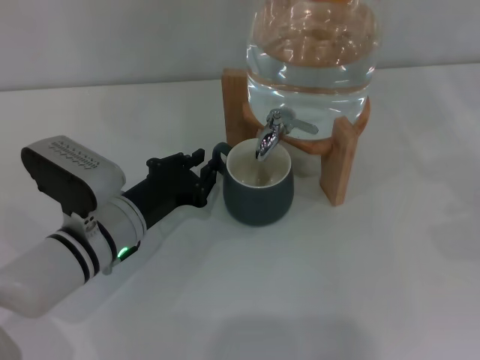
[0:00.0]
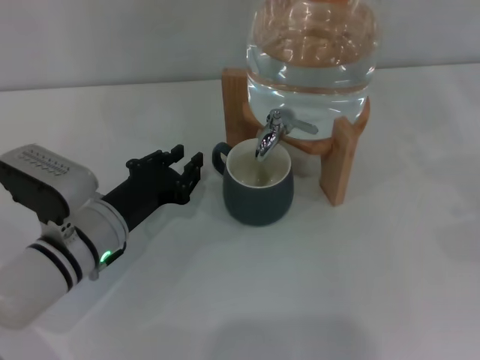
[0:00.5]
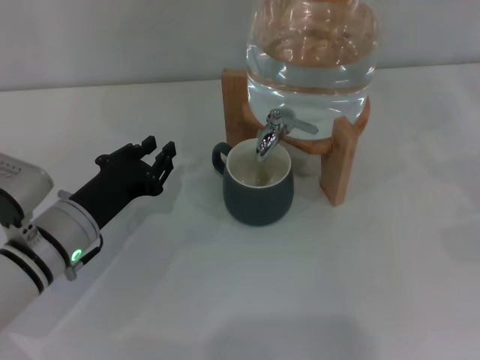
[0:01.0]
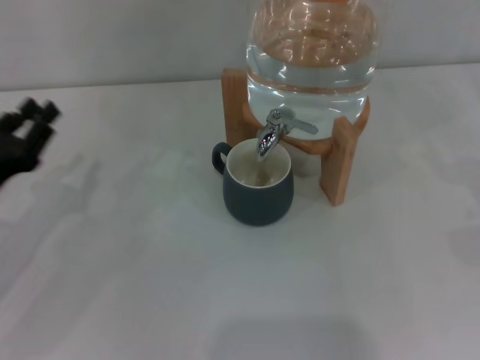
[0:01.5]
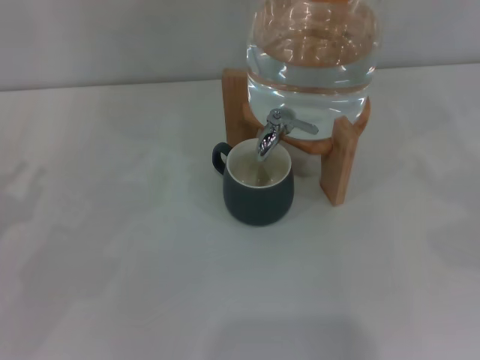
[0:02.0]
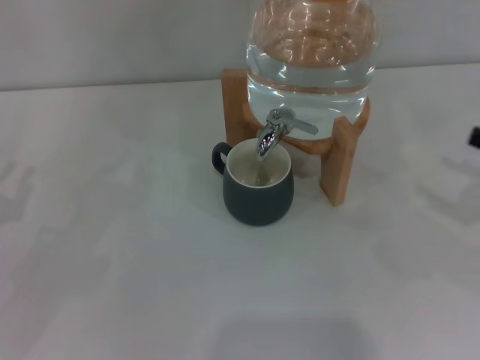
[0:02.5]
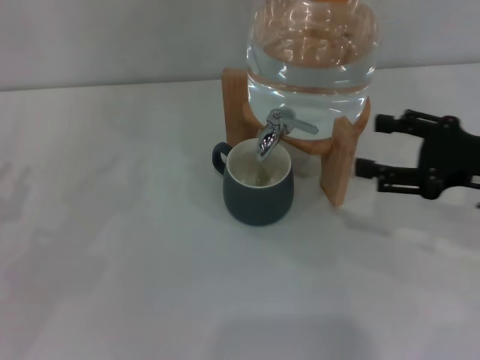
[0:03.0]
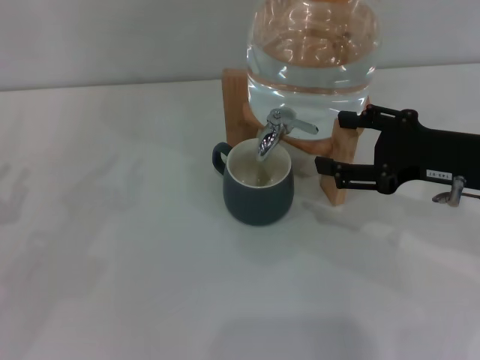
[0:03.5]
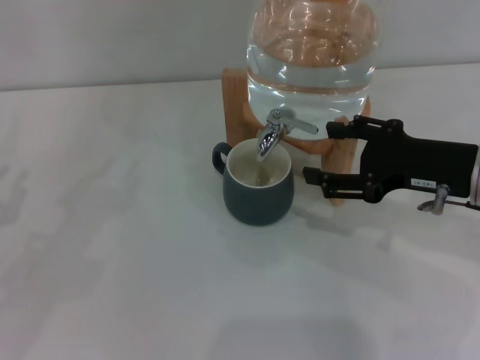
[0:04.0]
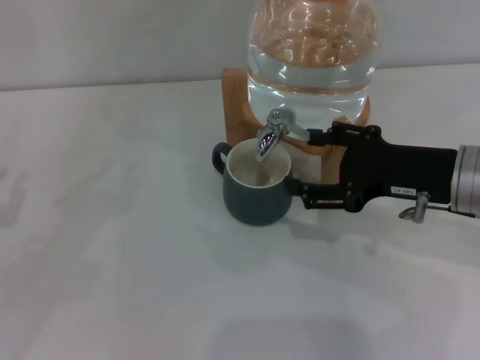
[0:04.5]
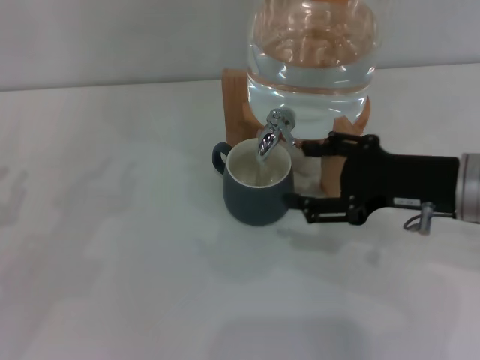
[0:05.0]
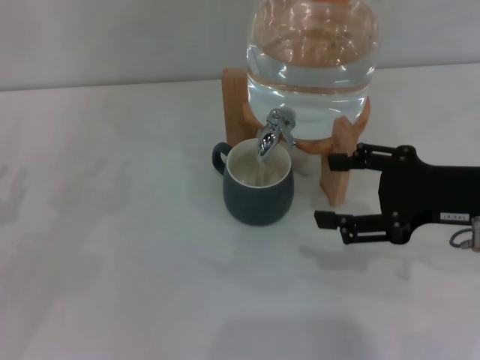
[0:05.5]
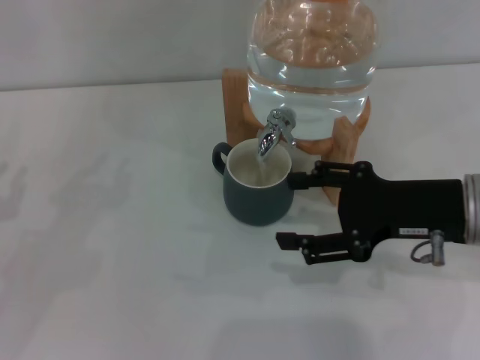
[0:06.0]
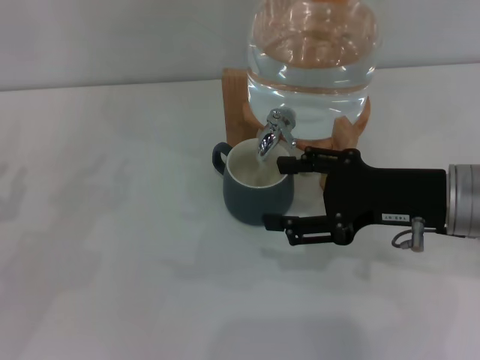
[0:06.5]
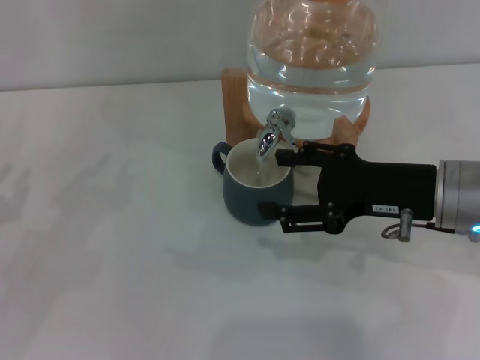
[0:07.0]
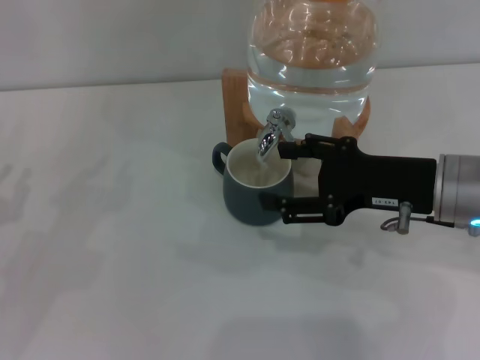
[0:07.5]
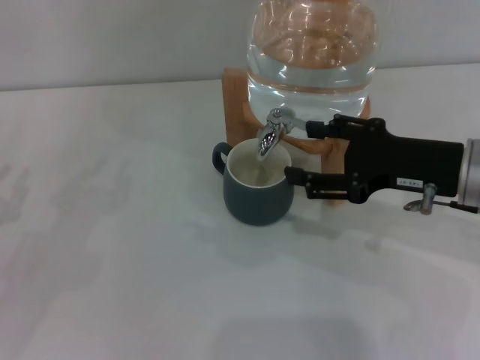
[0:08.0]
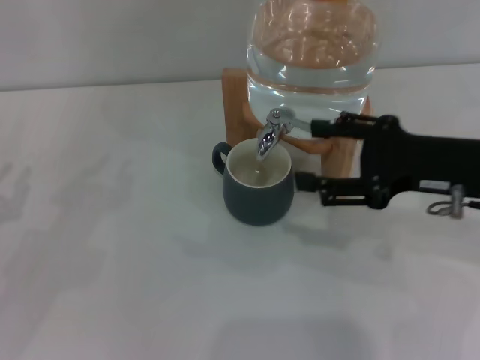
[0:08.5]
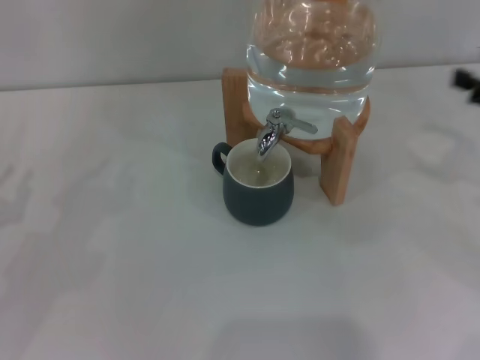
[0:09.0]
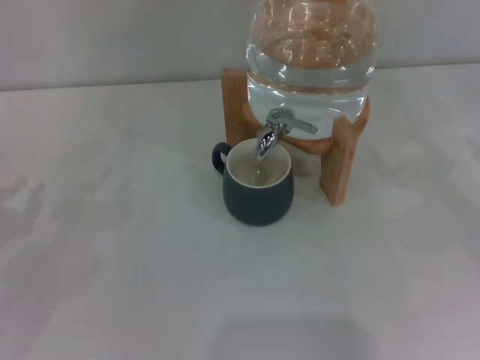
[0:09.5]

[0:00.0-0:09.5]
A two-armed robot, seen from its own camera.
Task of the whole recording: the left gripper pick up the black cup and place it horizontally under the faucet, the right gripper turn on the faucet to fill the cup, and then turn off the faucet.
Step, 0:01.0 to 0:06.5: Open the dispenser valve and fill the cup with water with the right gripper.
Step, 0:07.0 to 0:08.5: Close the dispenser valve with the right gripper.
0:00.0 to 0:02.0: The left gripper moves to the left, about 20 cm.
0:02.0 to 0:04.0: The right gripper shifts about 20 cm to the left.
0:04.0 to 0:05.5: There are only small adjustments of the grippers.
0:05.5 to 0:07.5: The right gripper changes place by approximately 5 cm.
0:07.5 to 0:09.5: The right gripper moves to the right, roughly 20 cm.
